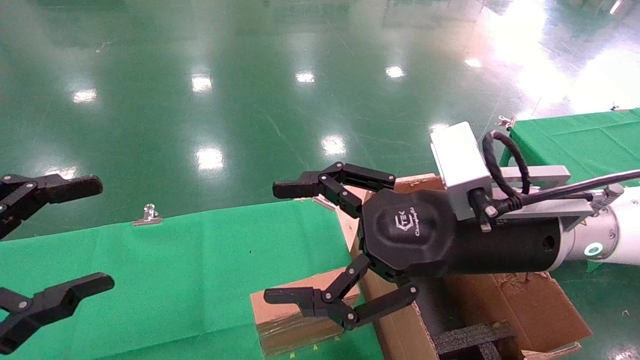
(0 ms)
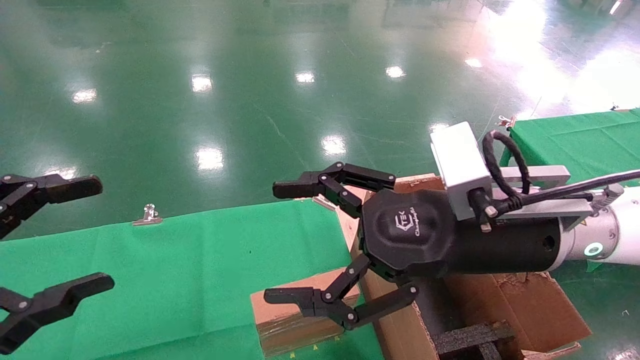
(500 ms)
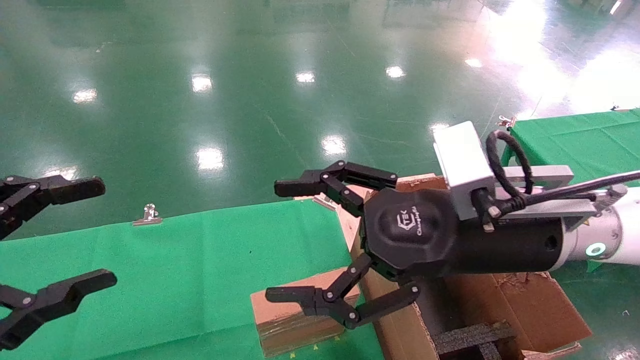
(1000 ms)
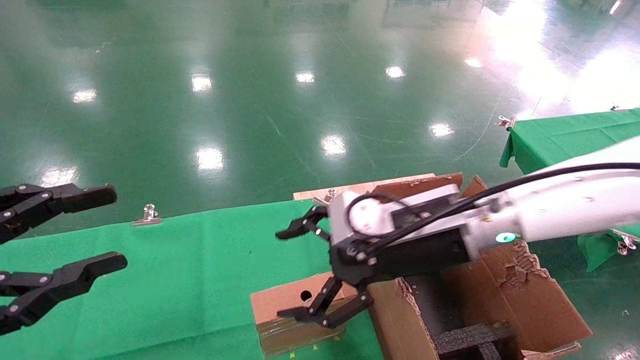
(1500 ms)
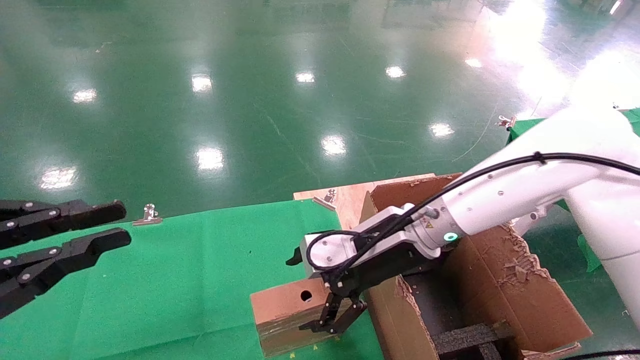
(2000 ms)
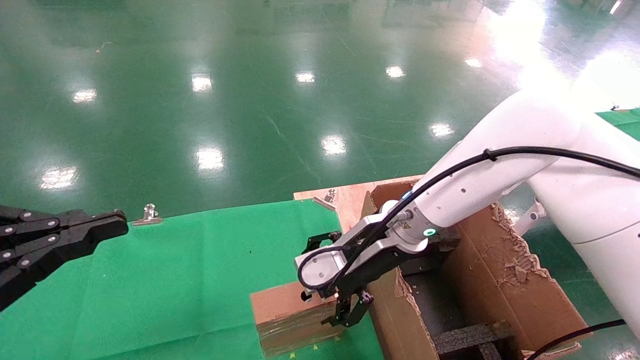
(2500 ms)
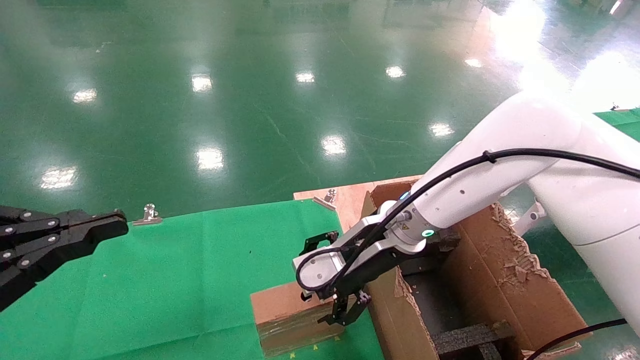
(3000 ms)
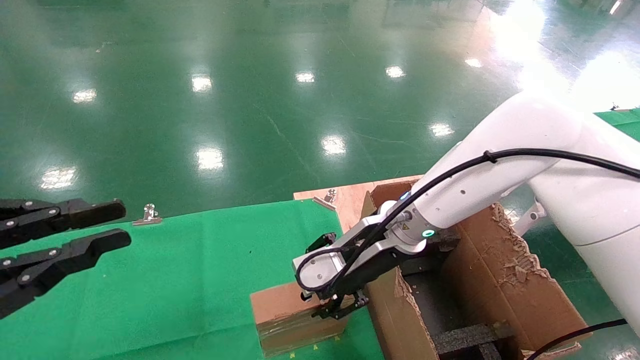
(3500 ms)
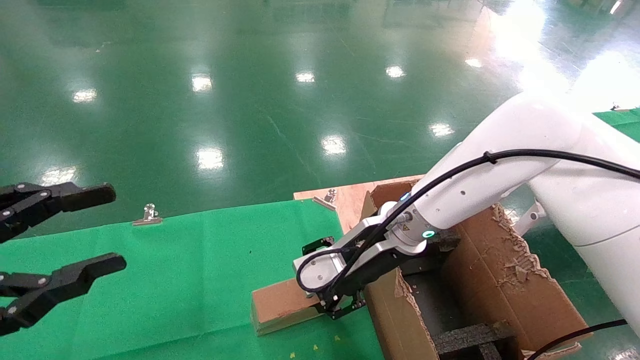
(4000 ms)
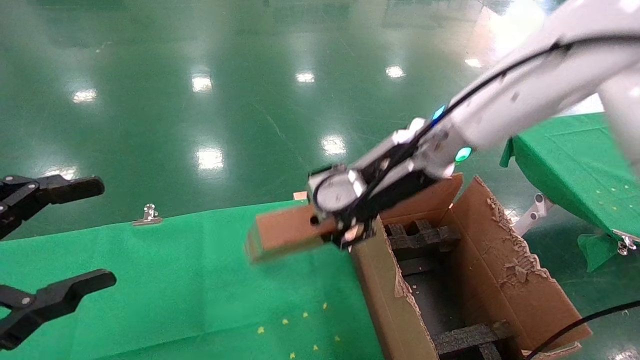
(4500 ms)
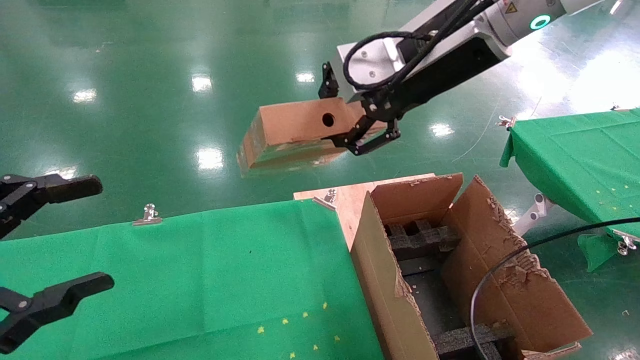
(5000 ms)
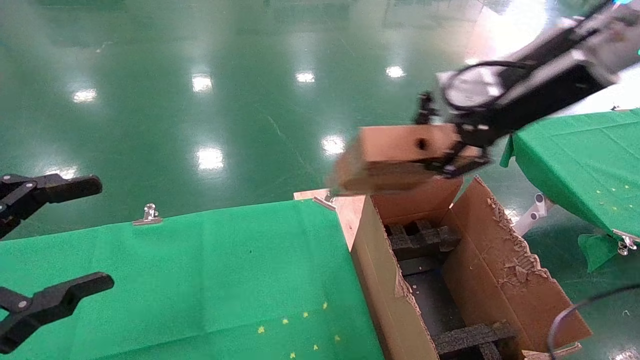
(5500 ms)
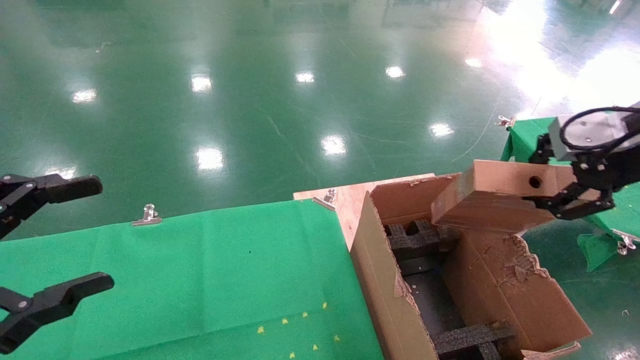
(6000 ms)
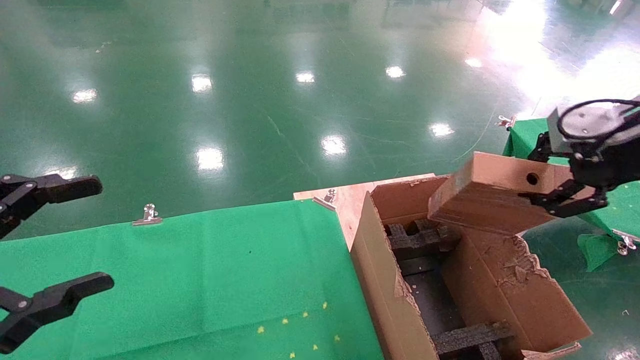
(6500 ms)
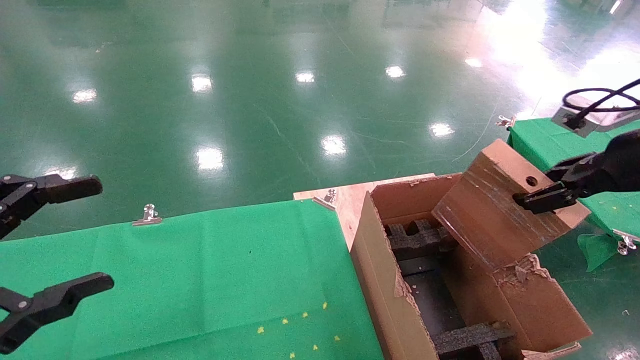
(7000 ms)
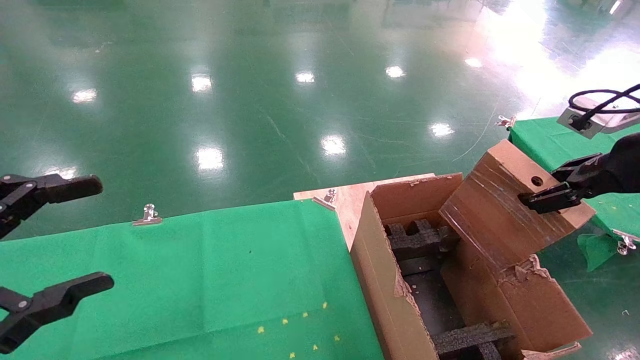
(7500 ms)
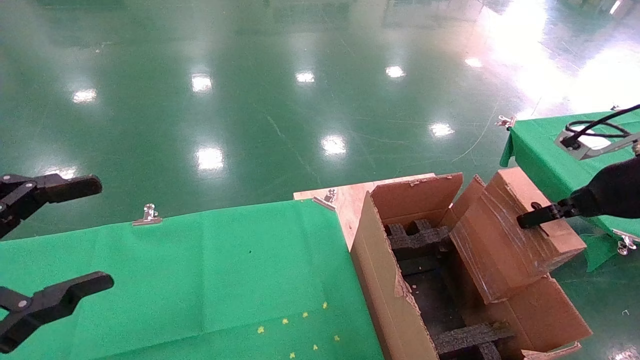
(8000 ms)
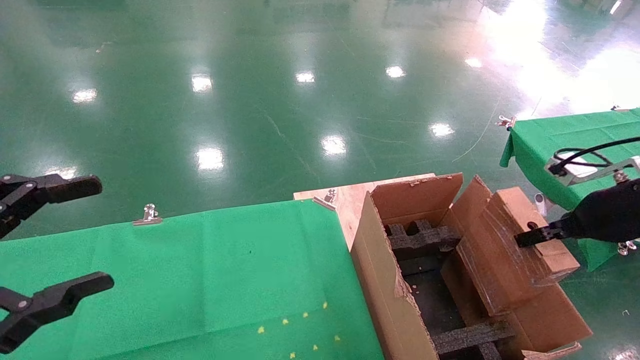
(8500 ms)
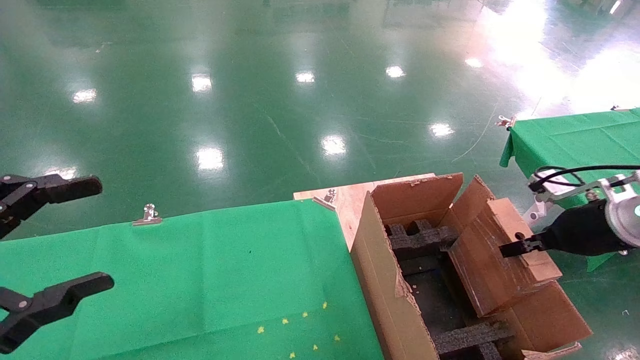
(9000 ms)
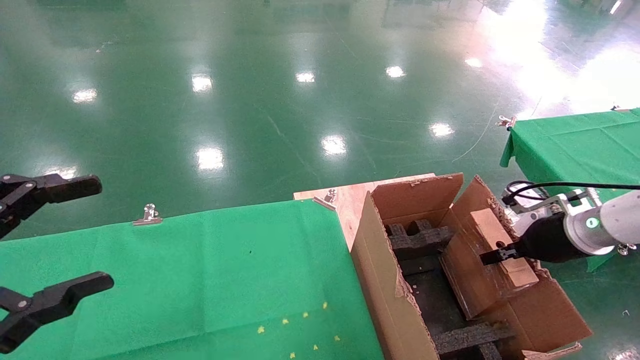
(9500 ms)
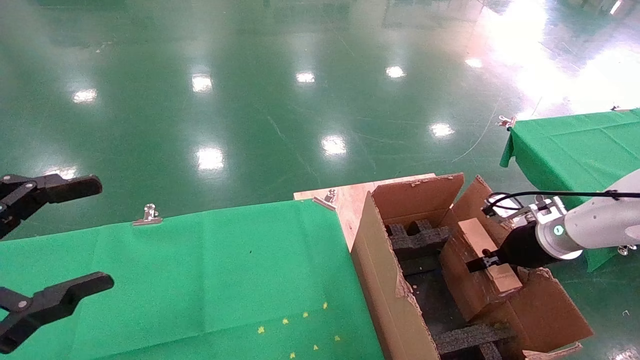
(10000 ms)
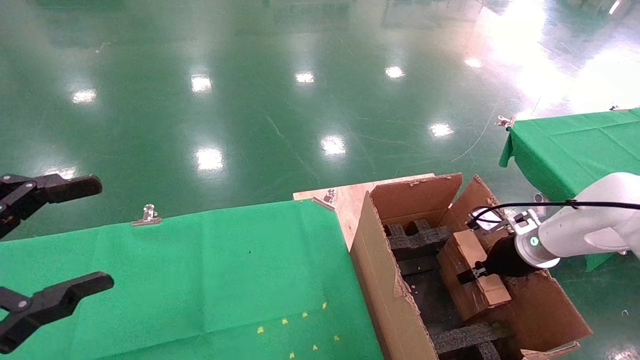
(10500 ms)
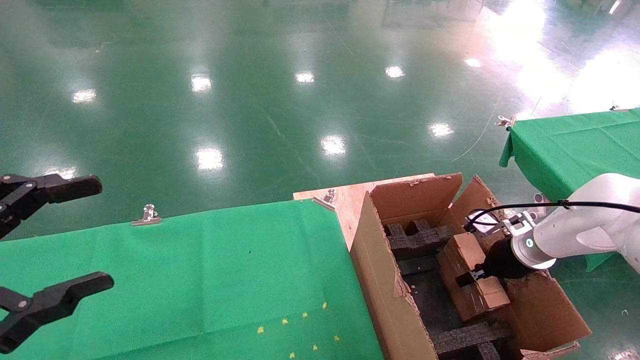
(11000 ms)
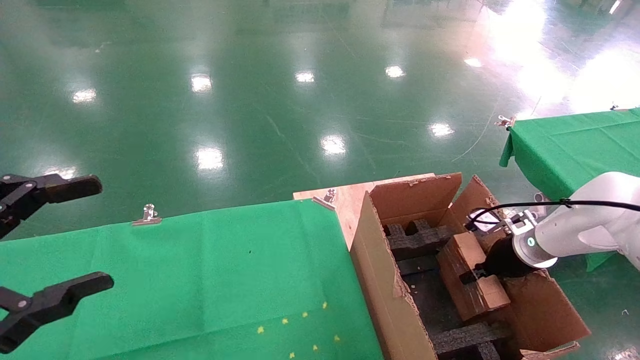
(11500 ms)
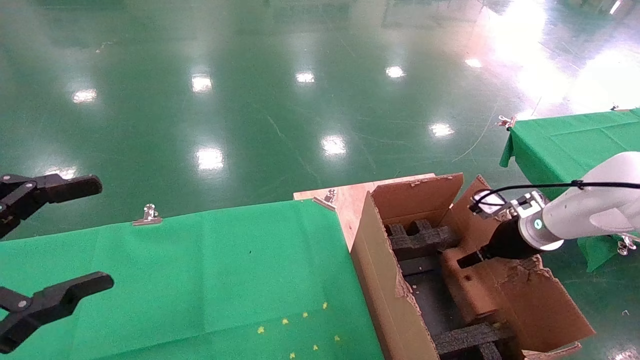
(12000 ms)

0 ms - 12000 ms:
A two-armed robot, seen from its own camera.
Task of the whole recording: using a robotic arm to pick up a cardboard box and palace it the carton.
Step, 1500 ms - 3500 ms: Pick up the mouse and the power cord paper box.
Step, 4000 ms - 11500 ms: Place the mouse and the power cord paper box into the container.
0 ms - 2000 ms: The left gripper closes its fingers; the right gripper is displaced forward and downward by roughly 10 cm.
2000 ms - 4000 ms: The right gripper closes.
4000 ms - 6000 ms: The left gripper opens its fingers. The right gripper goes approximately 35 cm to the right, upward and backward.
6000 ms - 8000 ms: The right gripper moves downward and to the right, approximately 10 cm.
8000 ms - 10000 ms: The right gripper shifts roughly 20 cm downward and forward.
10000 ms - 12000 ms: The right gripper opens its fingers.

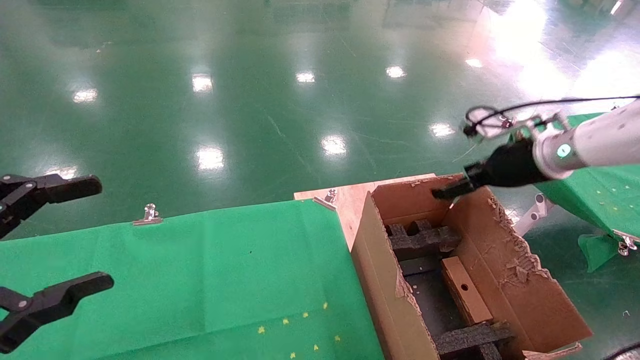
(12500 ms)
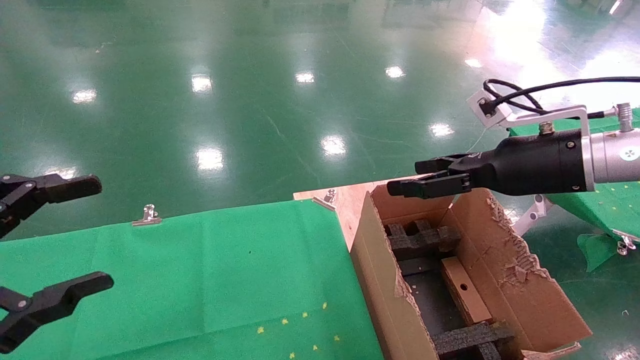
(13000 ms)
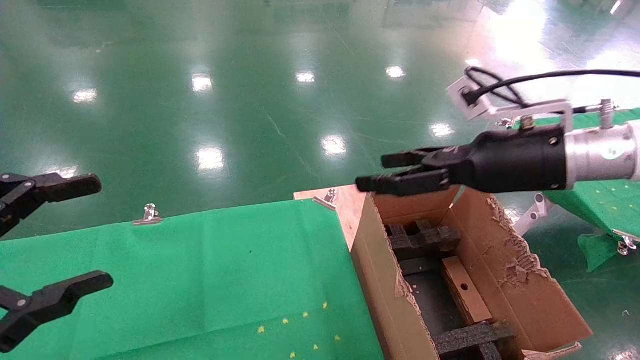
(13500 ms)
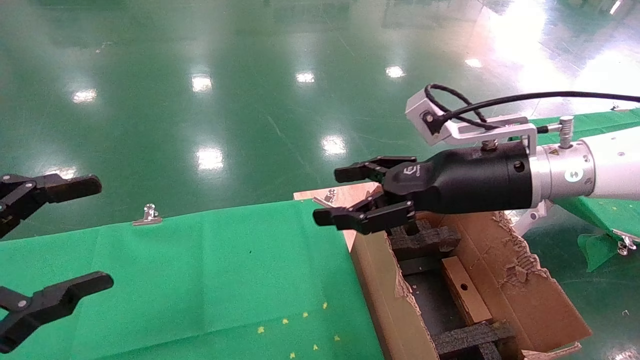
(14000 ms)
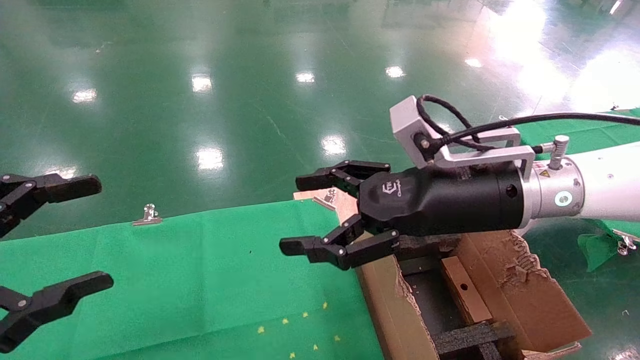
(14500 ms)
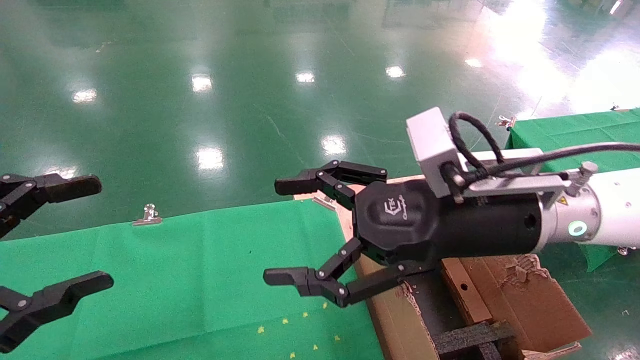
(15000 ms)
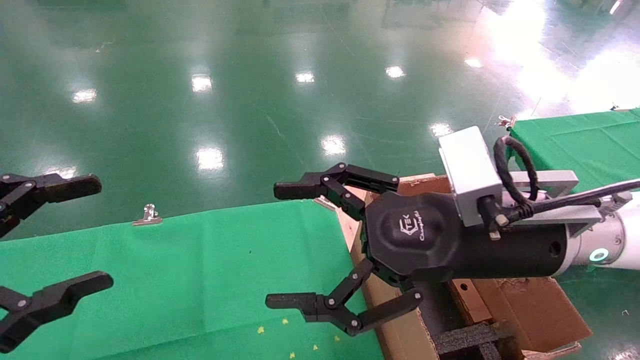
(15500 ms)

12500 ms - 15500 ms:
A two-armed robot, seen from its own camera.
Task of the whole recording: using a robotic arm to pick up a cardboard box and palace it the carton.
12500 ms - 14000 ms: The right gripper travels to the left and backward by roughly 15 cm.
14000 ms - 15500 ms: The right gripper heads backward, covering about 5 cm.

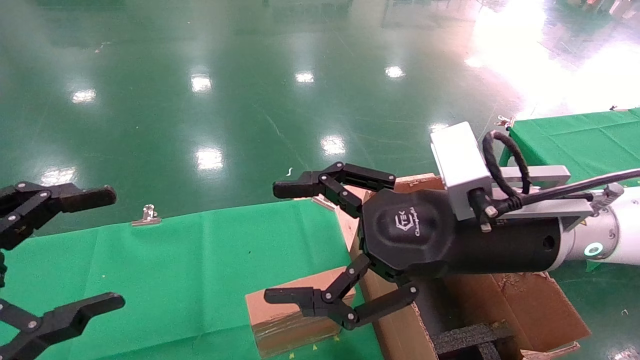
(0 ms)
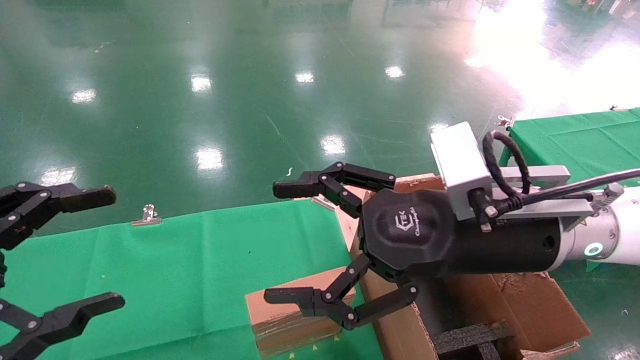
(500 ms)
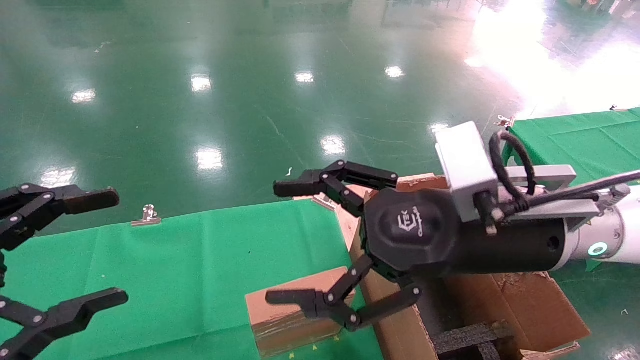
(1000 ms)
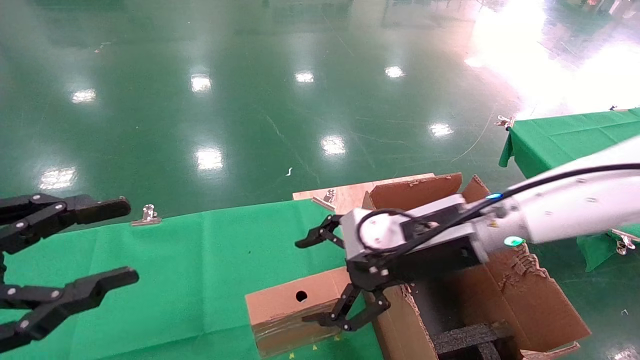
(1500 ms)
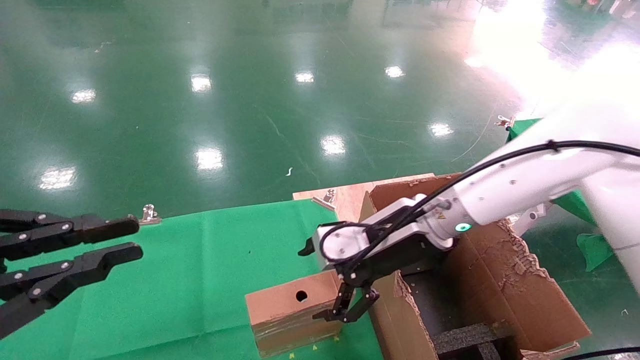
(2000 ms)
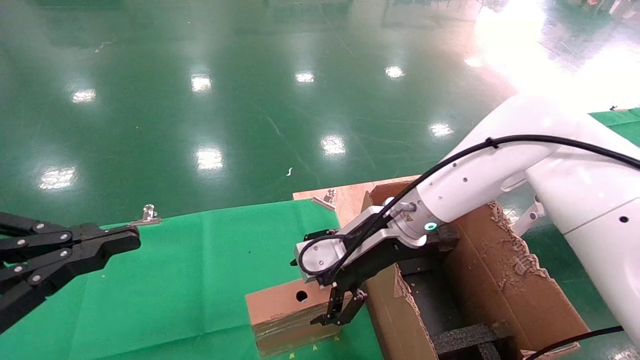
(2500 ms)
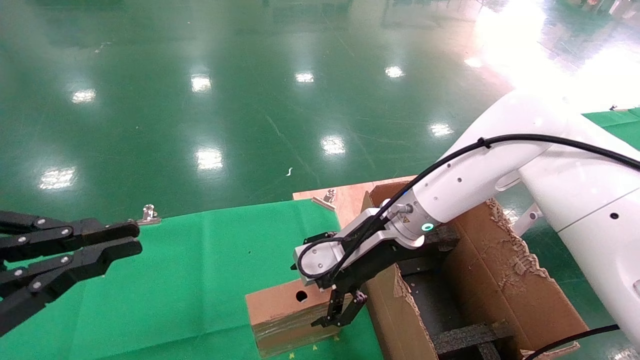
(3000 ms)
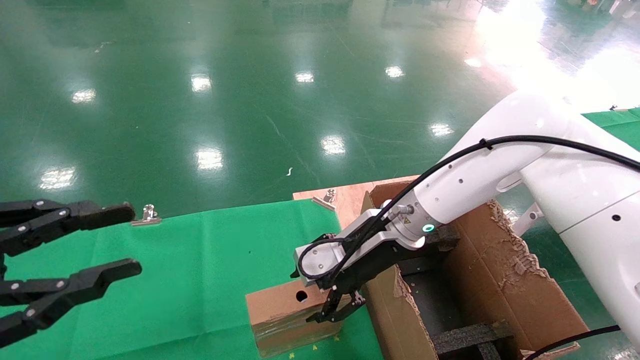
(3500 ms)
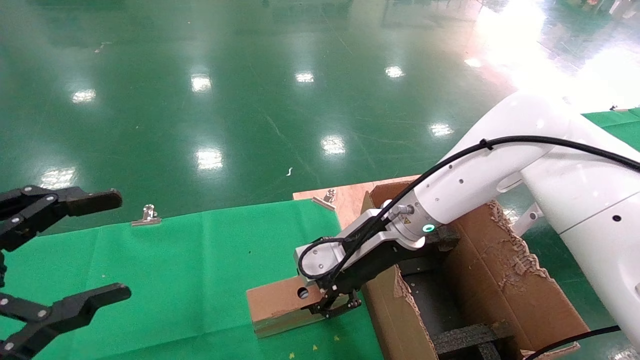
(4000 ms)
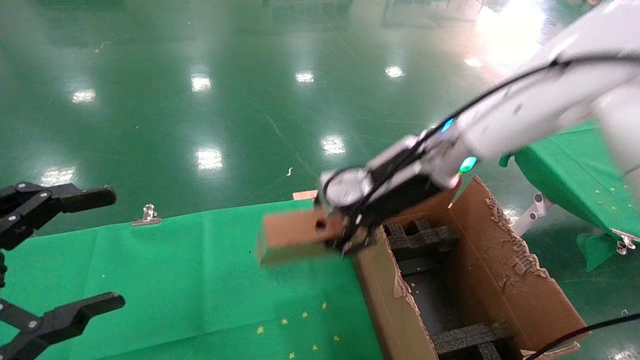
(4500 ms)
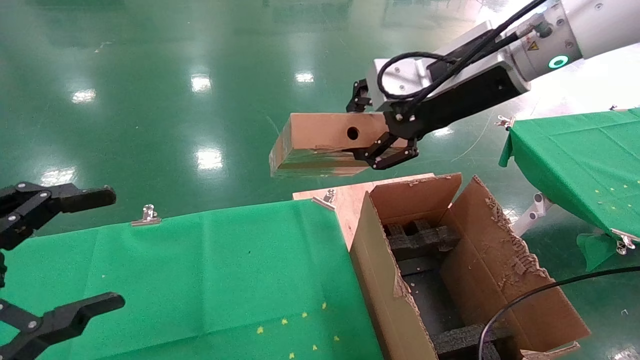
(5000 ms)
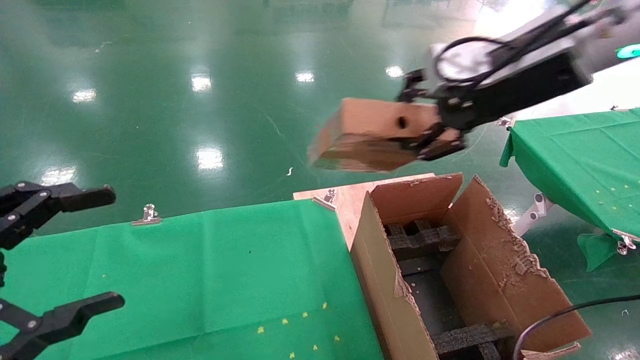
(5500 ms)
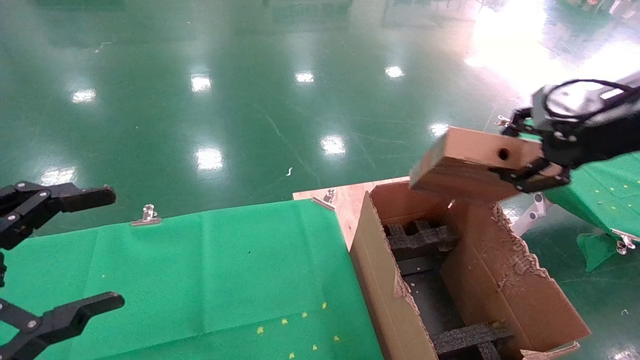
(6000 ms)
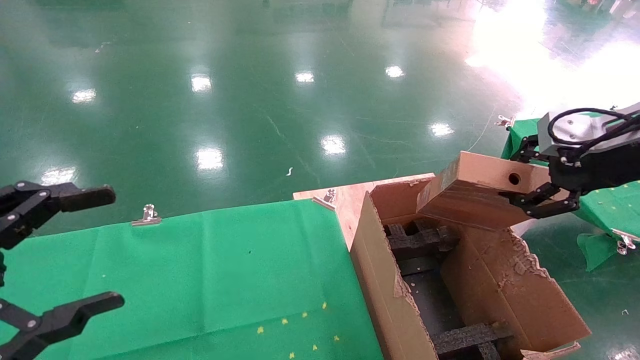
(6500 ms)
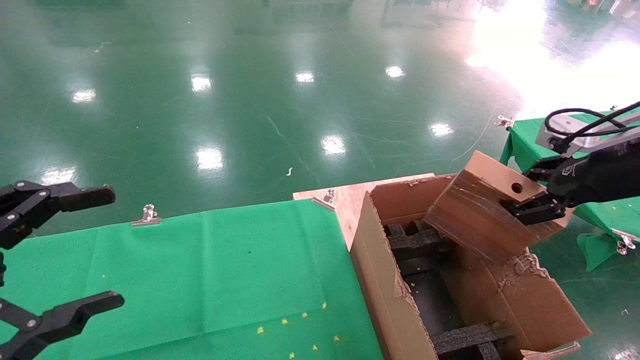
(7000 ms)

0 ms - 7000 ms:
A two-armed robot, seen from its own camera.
Task of the whole recording: using a robotic arm to pick up a cardboard box and palace it the carton.
Step, 1000 ms - 3500 ms: Pick up the mouse and the power cord paper box.
0 ms - 2000 ms: The right gripper goes some 15 cm forward and downward. Meanwhile the left gripper closes.
2000 ms - 3500 ms: There are only small adjustments of the grippers.
3500 ms - 5000 ms: The right gripper shifts some 20 cm upward and to the right, and closes; the left gripper opens its fingers.
5000 ms - 7000 ms: The right gripper travels to the right by roughly 20 cm.
